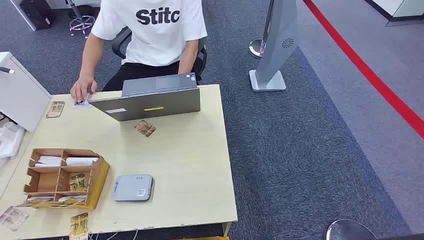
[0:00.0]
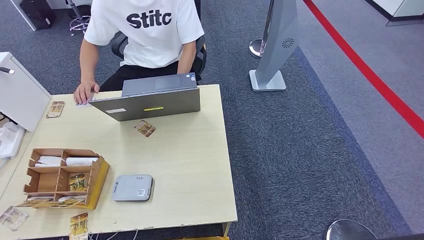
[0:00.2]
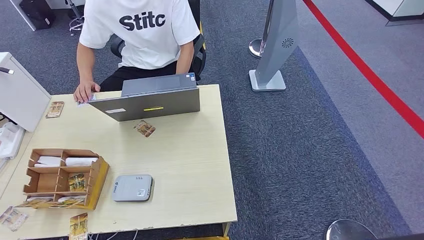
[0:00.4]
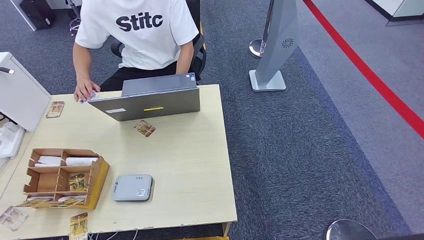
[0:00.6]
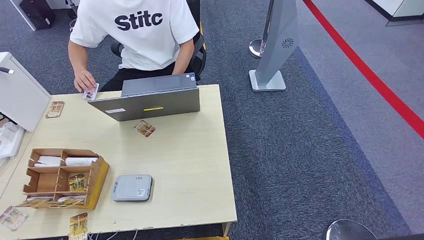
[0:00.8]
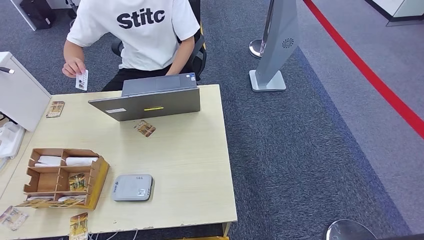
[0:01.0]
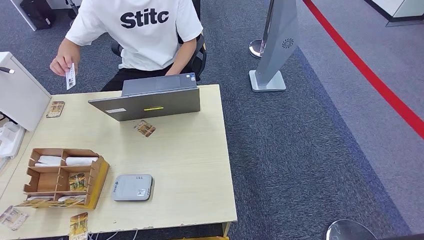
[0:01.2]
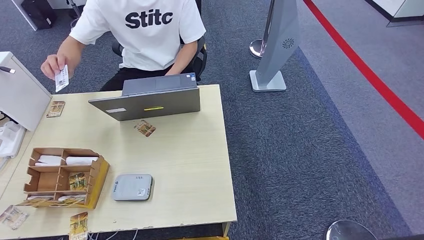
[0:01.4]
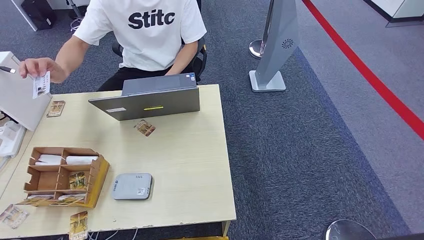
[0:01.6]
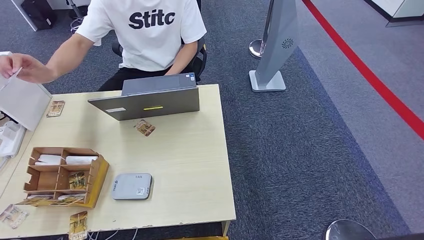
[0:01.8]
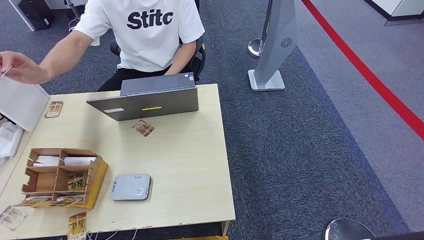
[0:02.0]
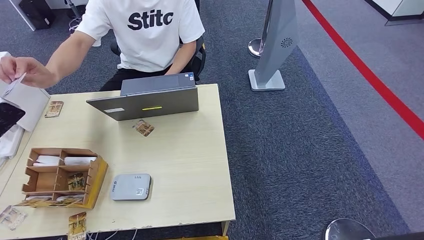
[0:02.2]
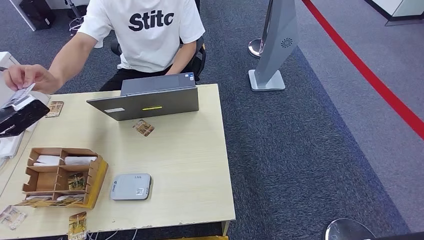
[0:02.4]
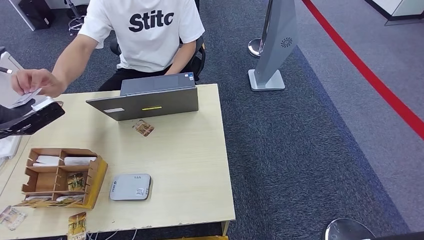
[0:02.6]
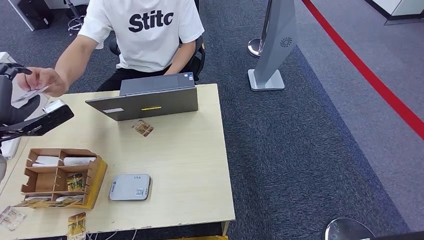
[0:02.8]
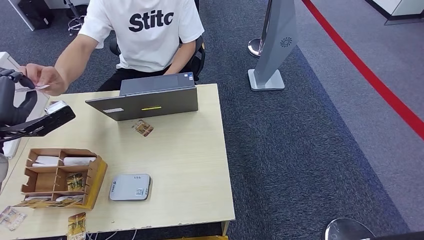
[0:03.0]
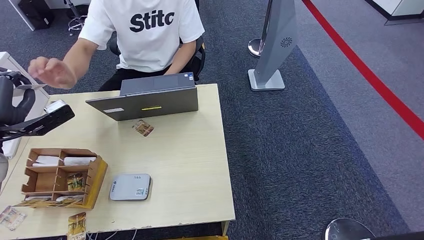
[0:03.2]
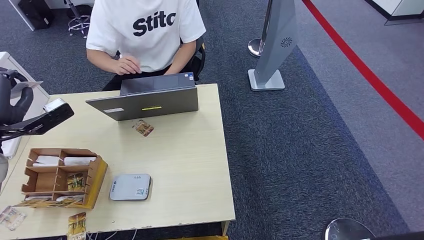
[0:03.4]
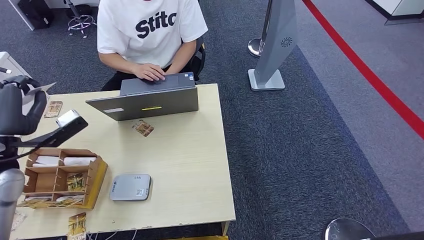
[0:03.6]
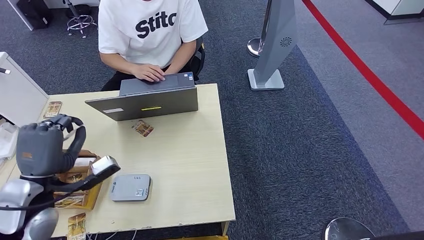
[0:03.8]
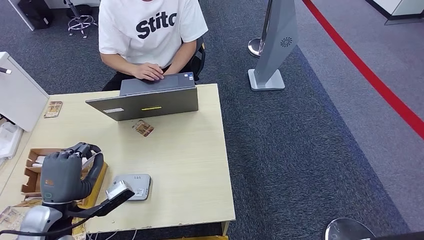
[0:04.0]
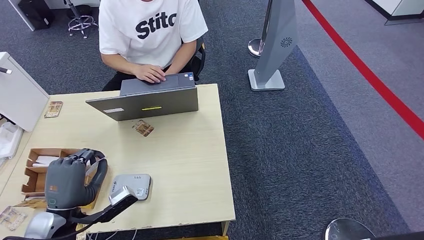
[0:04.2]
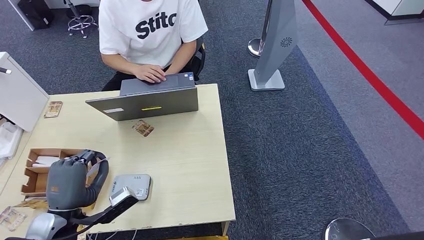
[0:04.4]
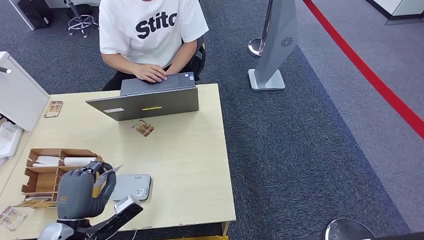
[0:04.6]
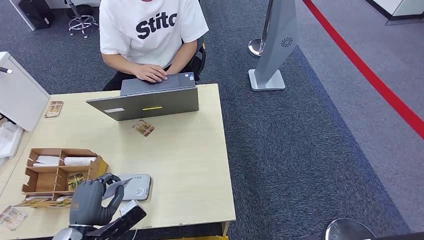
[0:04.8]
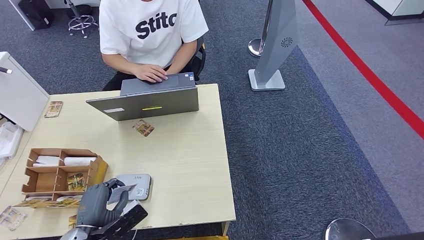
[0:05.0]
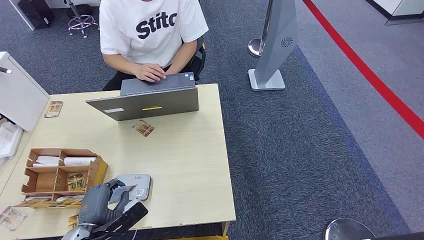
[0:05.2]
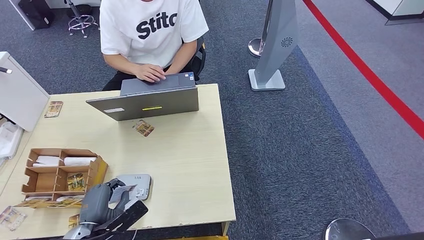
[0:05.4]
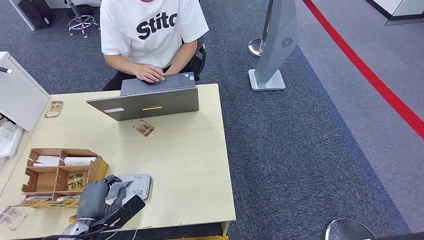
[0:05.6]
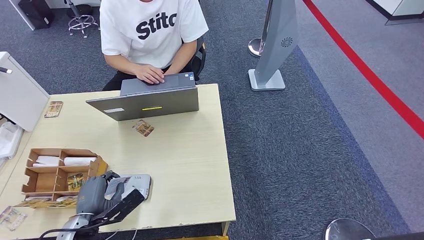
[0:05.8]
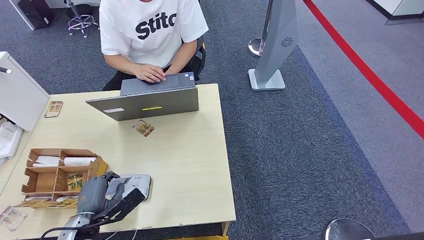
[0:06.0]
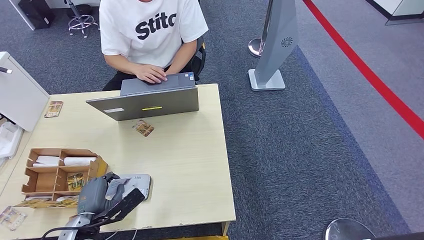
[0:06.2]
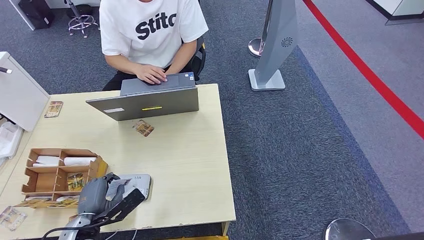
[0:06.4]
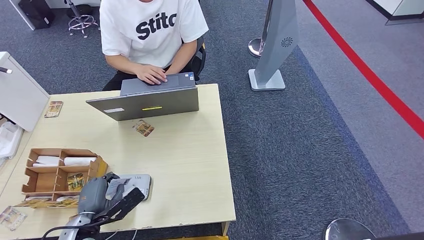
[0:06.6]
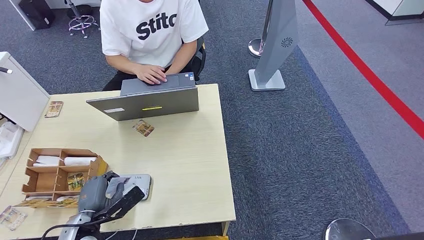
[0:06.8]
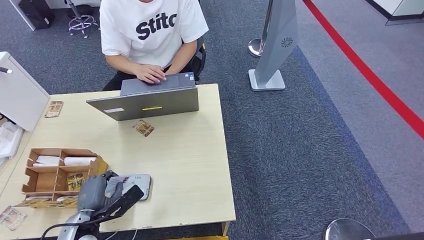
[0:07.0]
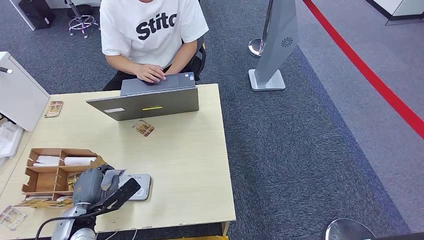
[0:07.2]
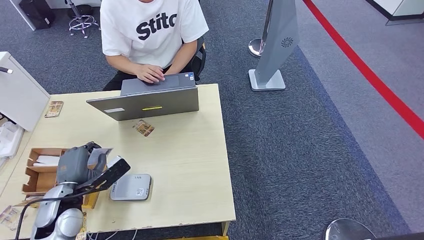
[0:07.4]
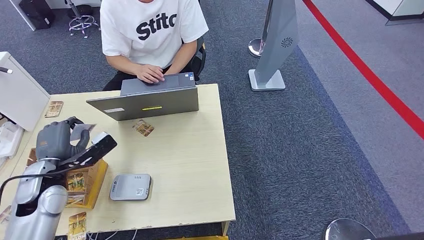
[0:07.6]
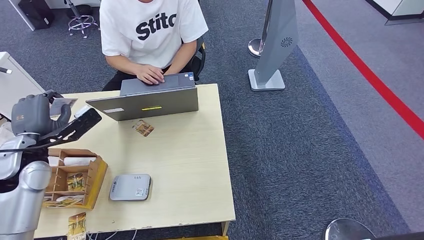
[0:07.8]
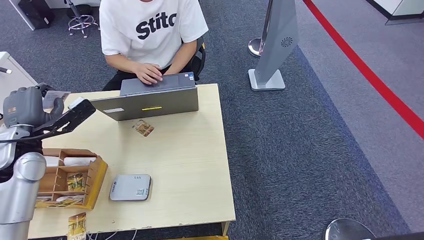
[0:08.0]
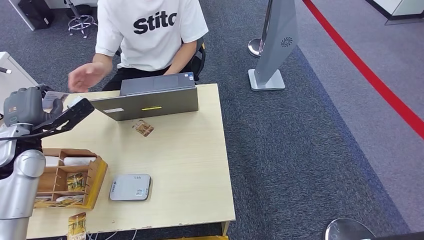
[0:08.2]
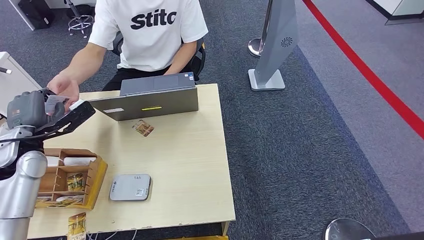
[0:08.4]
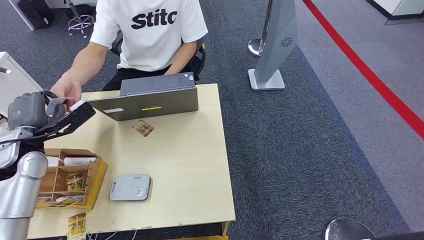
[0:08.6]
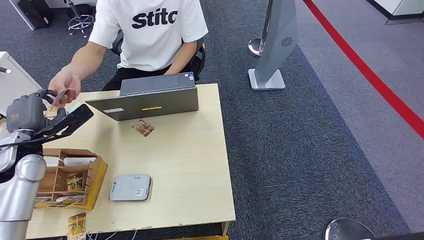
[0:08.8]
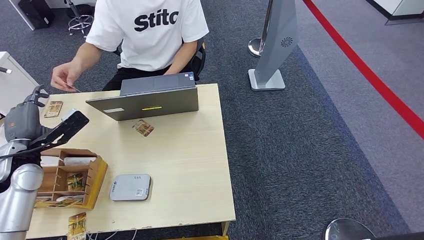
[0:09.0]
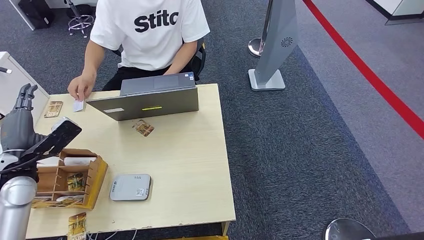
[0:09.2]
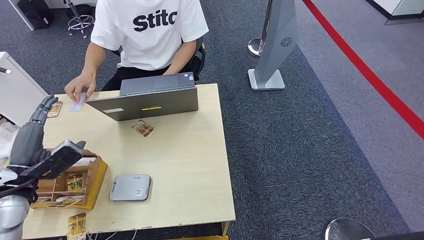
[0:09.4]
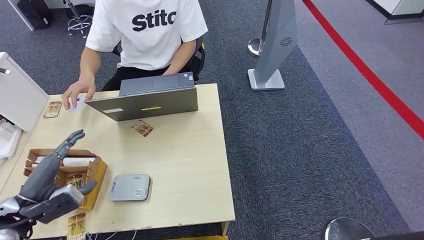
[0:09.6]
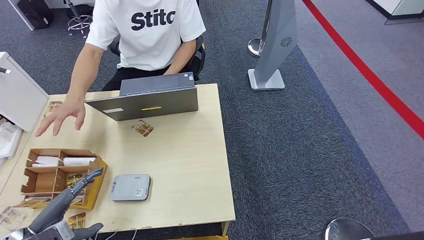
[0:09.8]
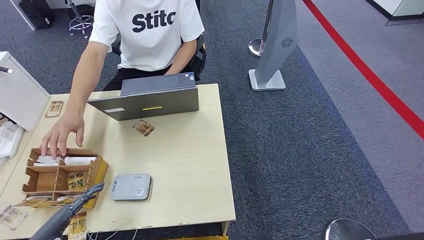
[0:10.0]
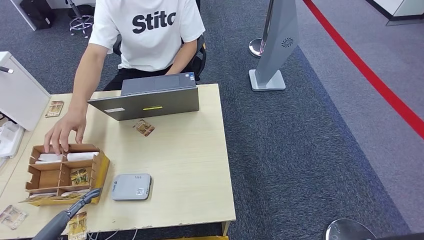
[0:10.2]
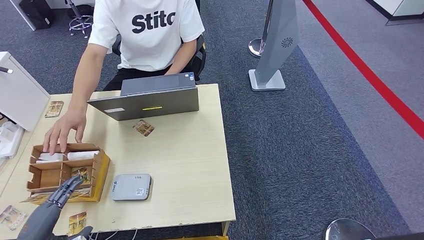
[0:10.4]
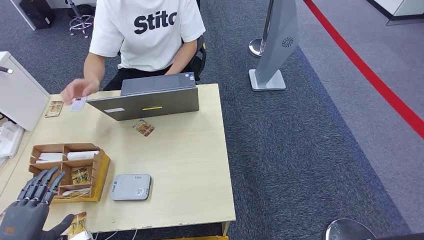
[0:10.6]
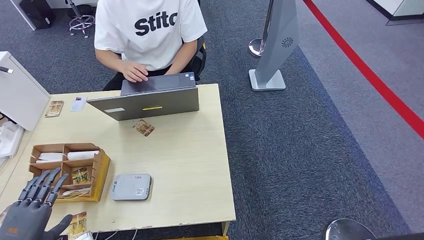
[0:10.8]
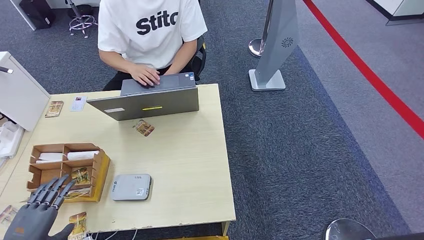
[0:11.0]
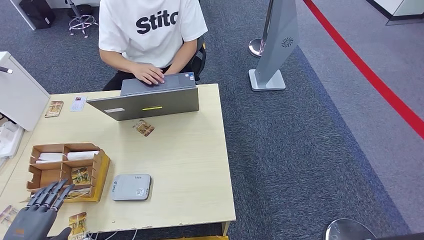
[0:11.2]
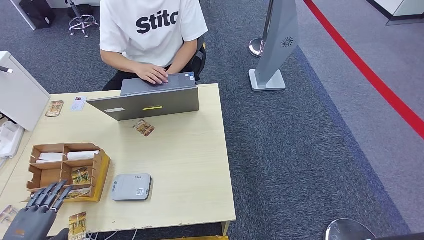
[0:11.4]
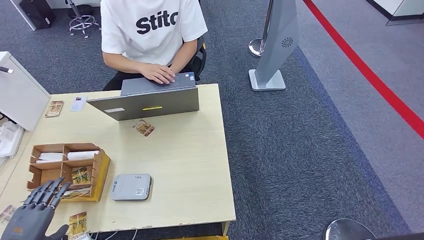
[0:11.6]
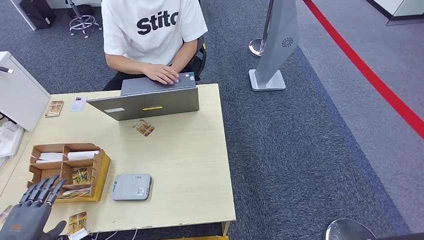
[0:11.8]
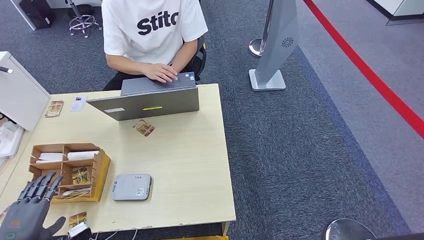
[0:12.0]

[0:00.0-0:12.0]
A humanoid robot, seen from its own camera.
Step, 0:00.0 to 0:04.0: Take the ID card from the person's hand.
Step, 0:04.2 to 0:06.8: Place the ID card on the card reader.
Step, 0:07.0 to 0:09.0: Hand the ID card to the person.
0:01.6 to 0:03.0: The left hand travels forward, to the right and upward by about 20 cm.
0:03.0 to 0:04.4: The left hand shifts roughly 25 cm backward, downward and to the right.
0:04.4 to 0:06.0: The left hand moves downward, some 10 cm.
0:06.0 to 0:07.6: The left hand is displaced upward, forward and to the left by about 15 cm.
0:07.6 to 0:09.0: The left hand goes approximately 5 cm to the left.
0:09.0 to 0:10.4: The left hand heads backward, covering approximately 20 cm.

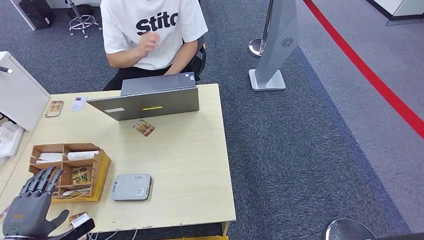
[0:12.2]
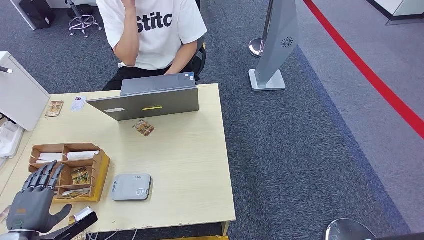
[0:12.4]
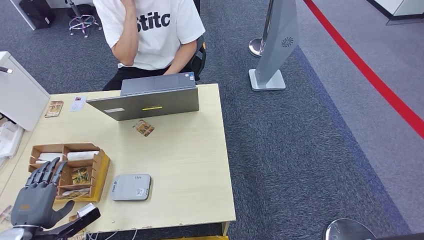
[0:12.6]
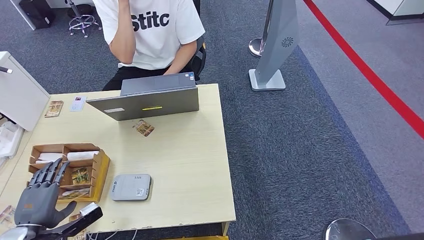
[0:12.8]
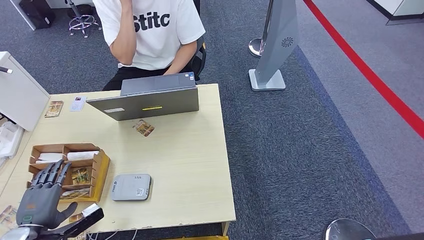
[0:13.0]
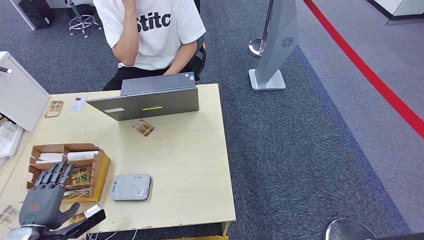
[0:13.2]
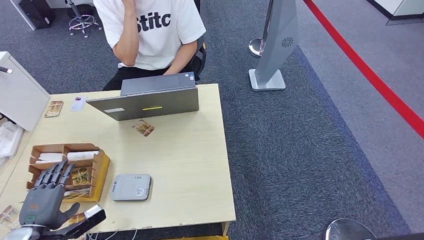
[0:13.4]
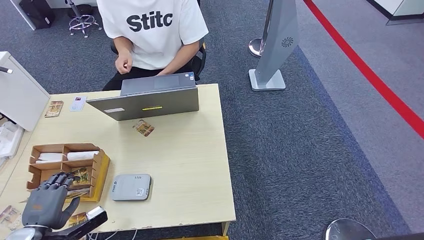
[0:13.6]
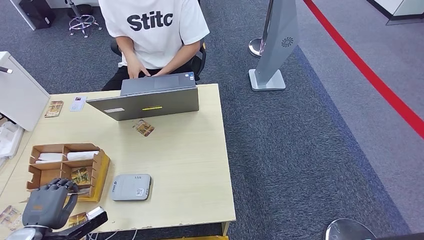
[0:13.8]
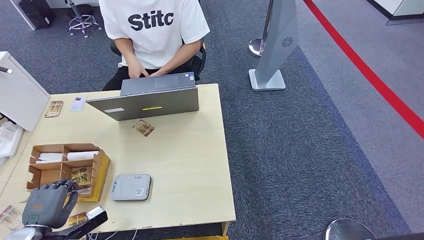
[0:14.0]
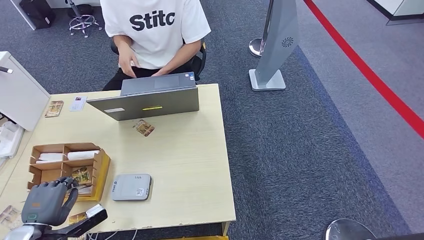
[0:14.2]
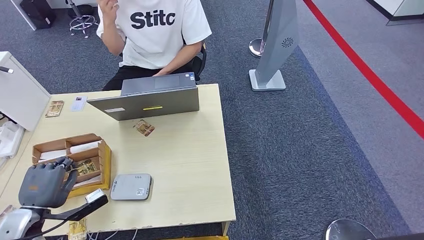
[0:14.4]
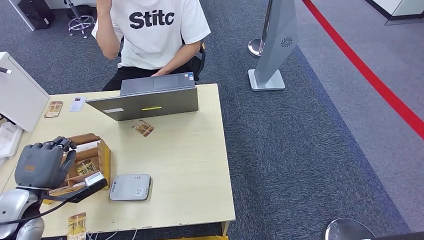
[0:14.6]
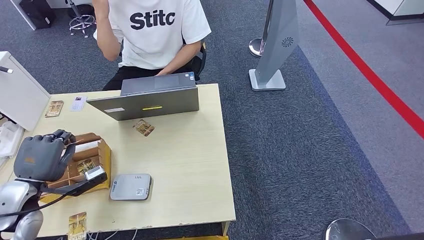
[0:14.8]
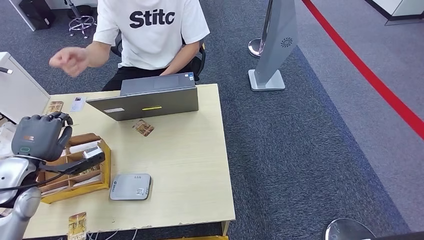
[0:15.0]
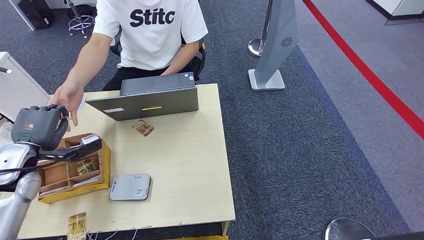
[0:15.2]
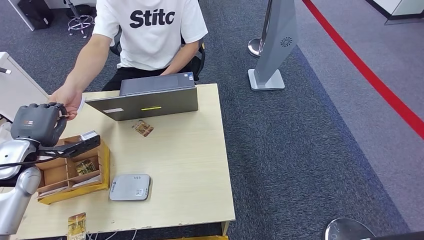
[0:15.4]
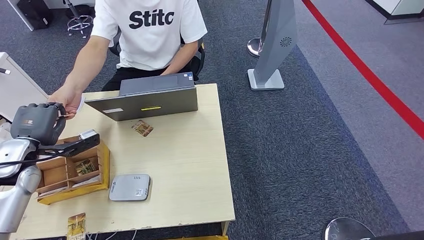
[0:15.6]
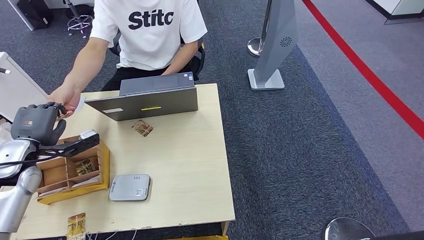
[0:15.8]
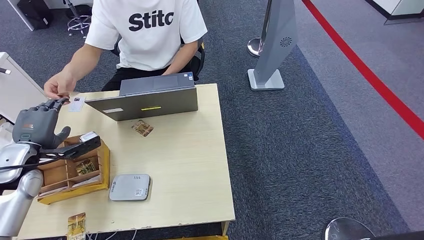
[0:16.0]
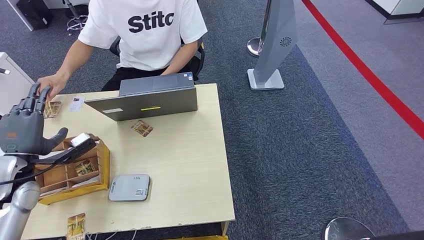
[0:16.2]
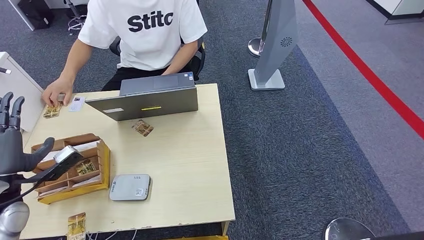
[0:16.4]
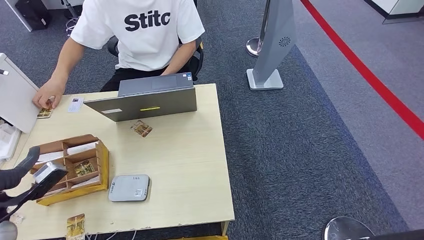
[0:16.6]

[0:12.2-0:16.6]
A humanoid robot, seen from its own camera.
Step, 0:12.2 to 0:14.4: Pick up the room key from the key card box.
Step, 0:14.6 to 0:16.6: Hand the room key to the person.
0:12.2 to 0:13.6: The hands move only a little.
0:13.6 to 0:15.2: The left hand shifts about 20 cm forward and upward.
0:15.2 to 0:16.6: The left hand goes approximately 10 cm backward.
